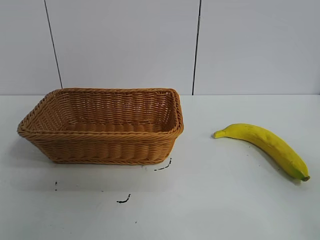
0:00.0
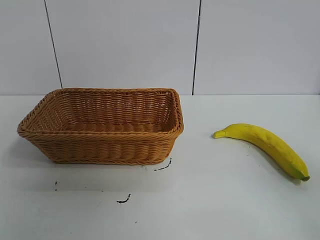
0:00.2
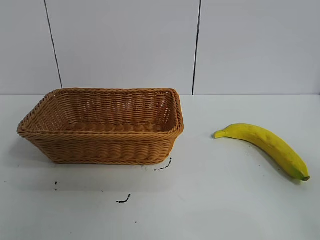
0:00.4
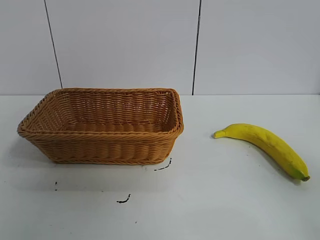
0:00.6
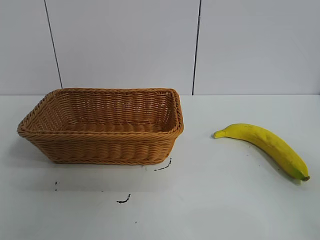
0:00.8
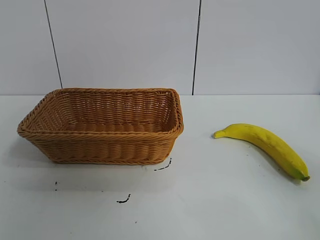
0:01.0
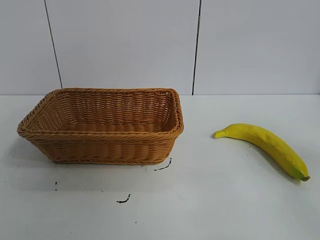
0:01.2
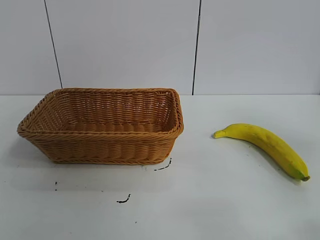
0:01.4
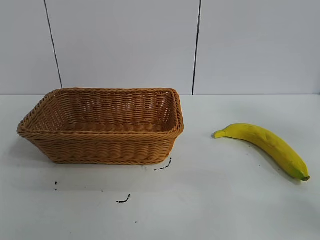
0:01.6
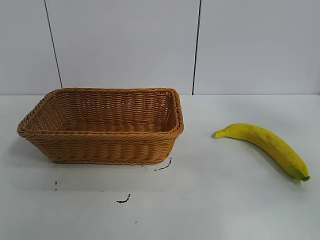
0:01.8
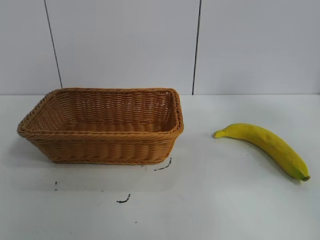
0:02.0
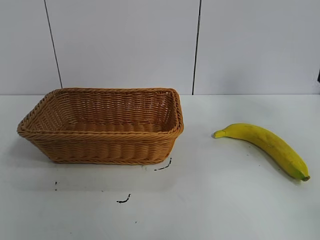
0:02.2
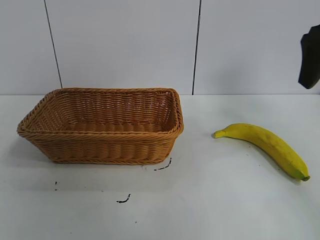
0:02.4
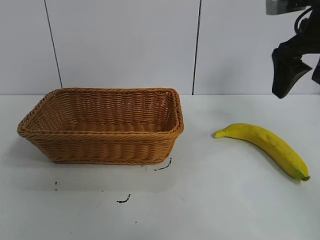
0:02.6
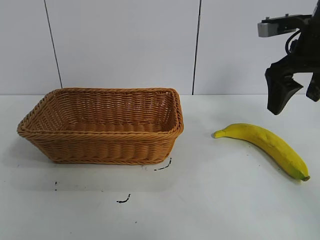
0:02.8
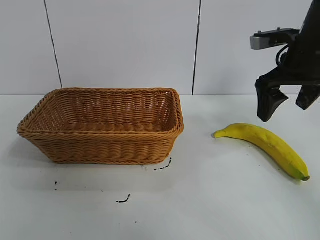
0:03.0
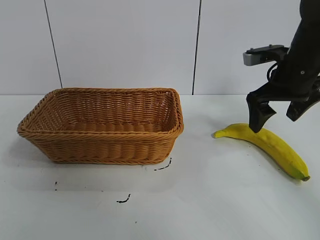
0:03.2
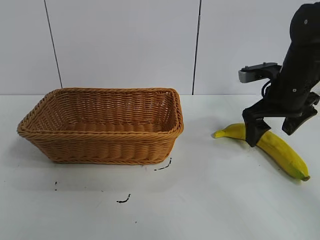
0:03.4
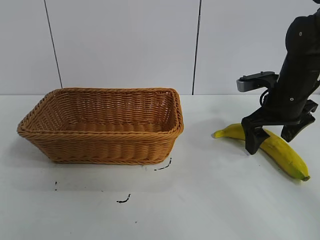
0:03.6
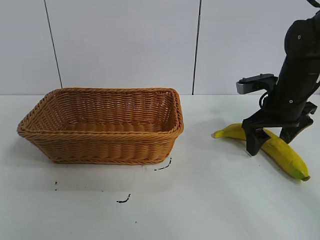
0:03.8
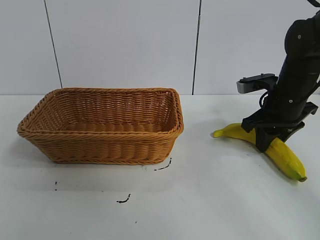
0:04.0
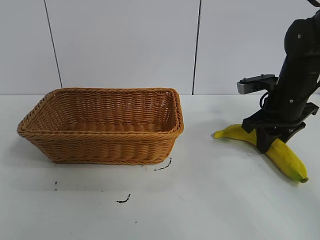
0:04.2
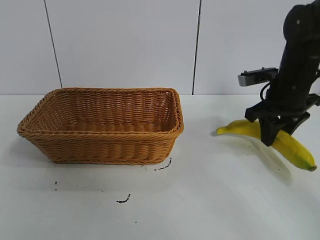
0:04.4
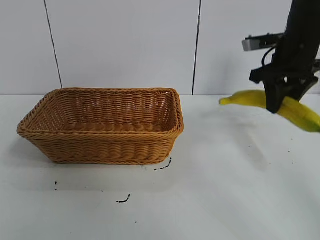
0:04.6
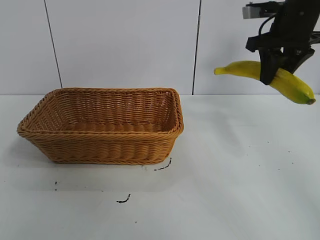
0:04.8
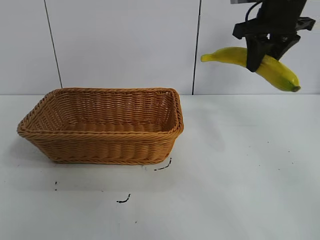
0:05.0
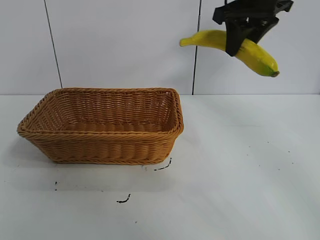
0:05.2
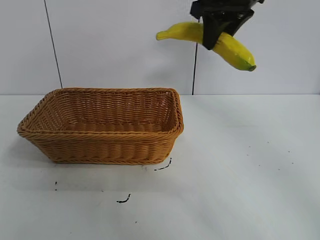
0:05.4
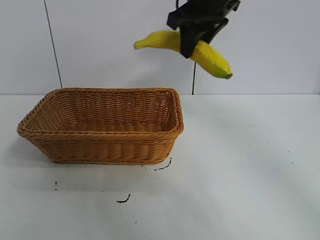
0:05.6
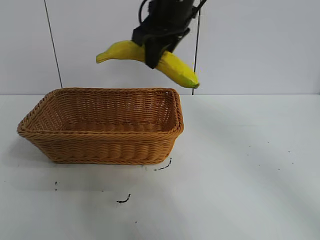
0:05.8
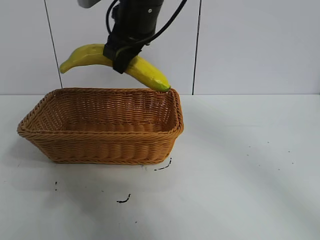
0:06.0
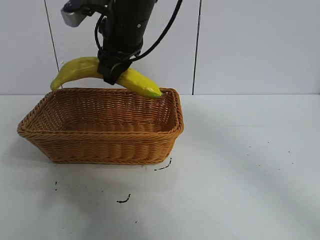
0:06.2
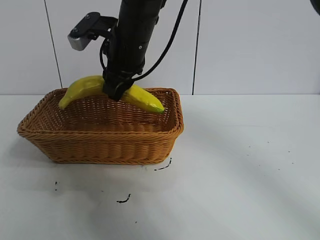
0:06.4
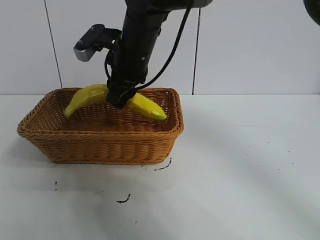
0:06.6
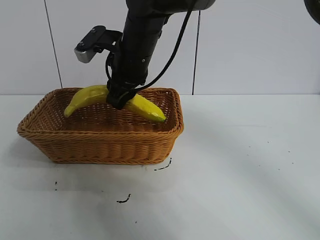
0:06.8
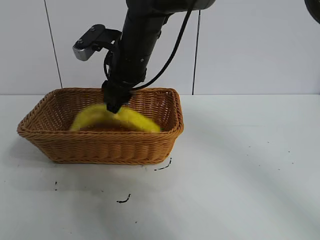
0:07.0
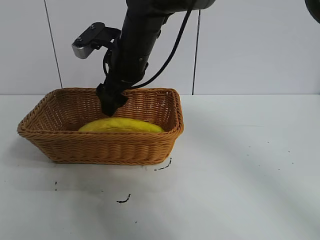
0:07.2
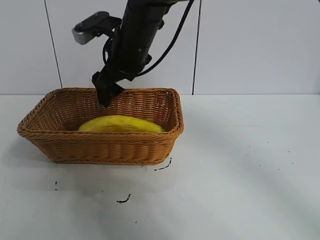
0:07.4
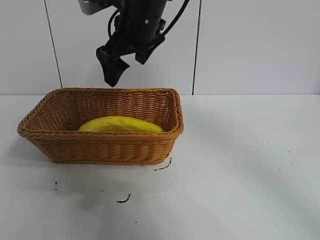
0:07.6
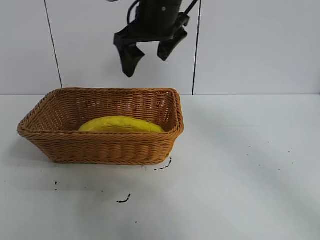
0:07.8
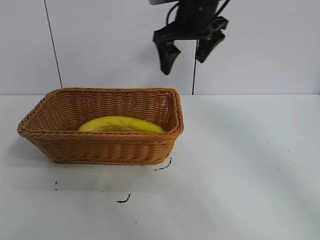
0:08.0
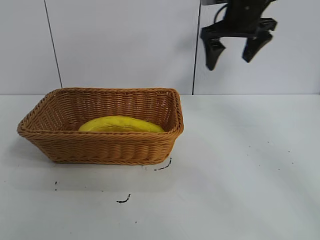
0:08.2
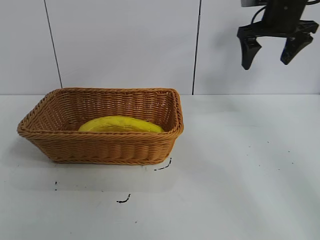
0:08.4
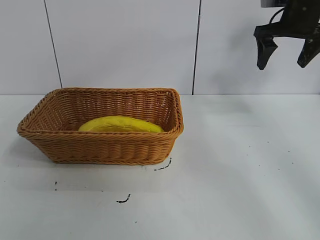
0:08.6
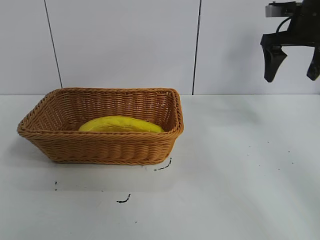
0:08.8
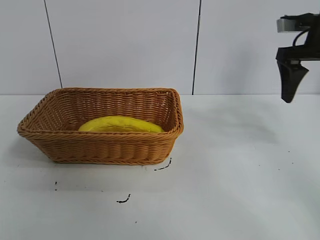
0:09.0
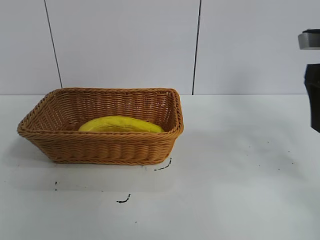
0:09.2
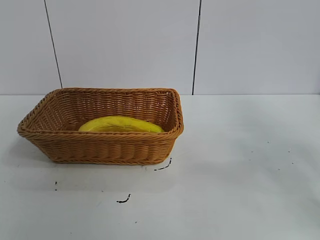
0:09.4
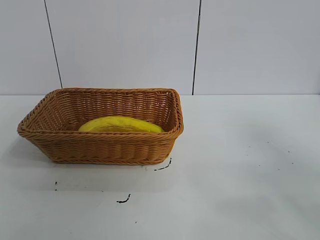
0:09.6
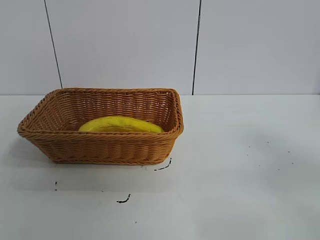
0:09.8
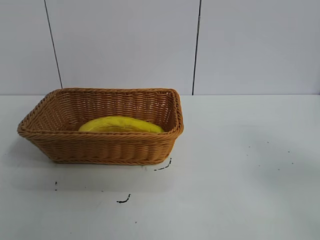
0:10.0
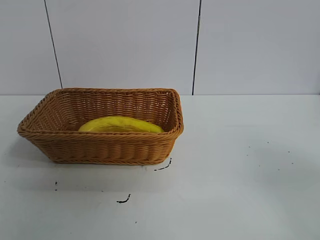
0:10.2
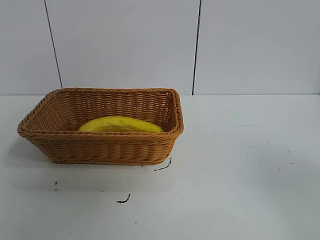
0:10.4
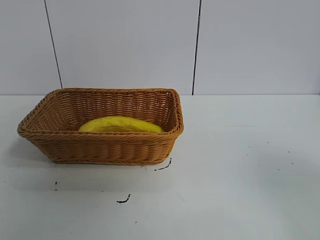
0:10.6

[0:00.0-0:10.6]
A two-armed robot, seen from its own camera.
Task of the whole recording: pick up the banana and put it into the basket.
Step, 0:00.8 to 0:04.2: Grasp the banana with right gripper.
Step, 0:04.4 to 0:07.0: Place the banana in the basket with right gripper.

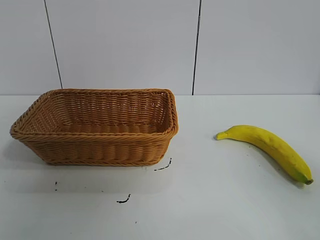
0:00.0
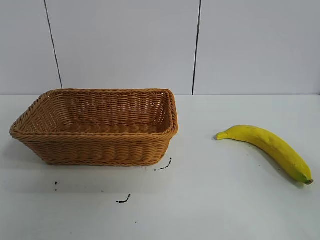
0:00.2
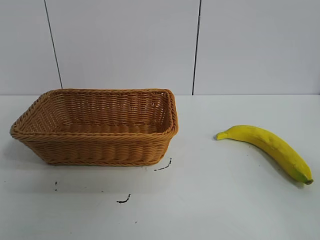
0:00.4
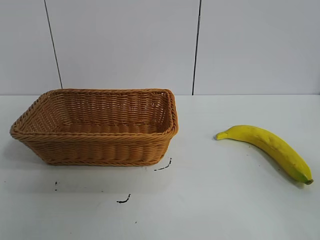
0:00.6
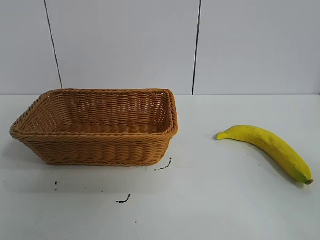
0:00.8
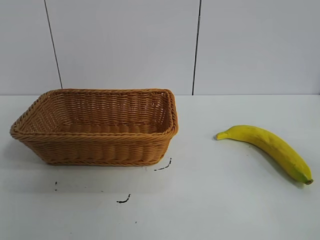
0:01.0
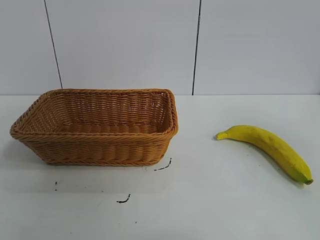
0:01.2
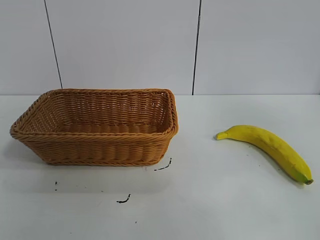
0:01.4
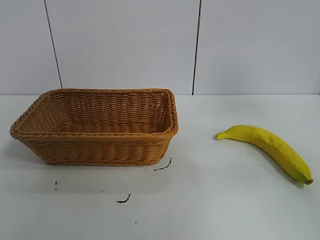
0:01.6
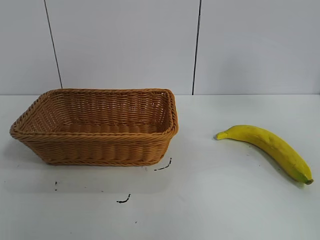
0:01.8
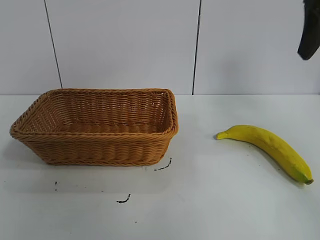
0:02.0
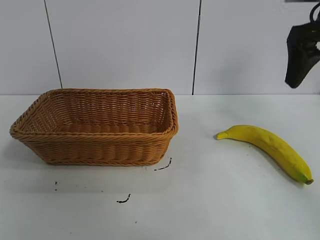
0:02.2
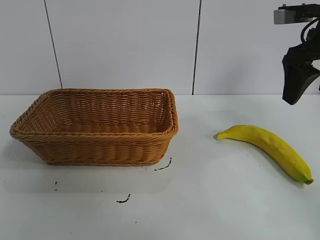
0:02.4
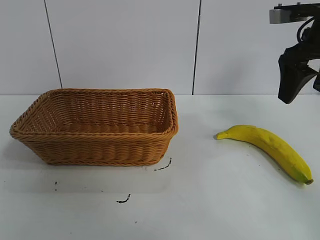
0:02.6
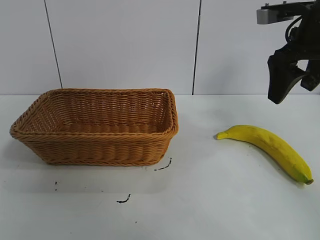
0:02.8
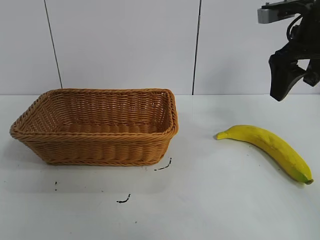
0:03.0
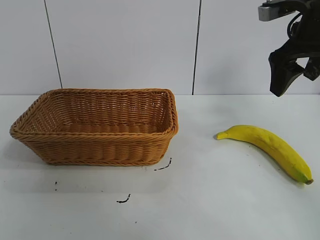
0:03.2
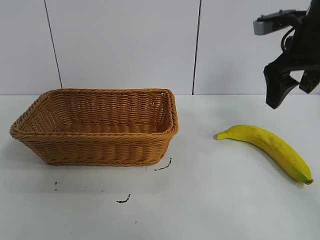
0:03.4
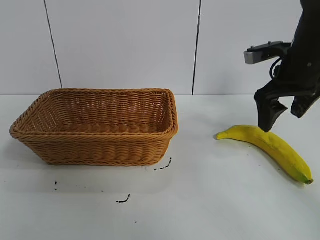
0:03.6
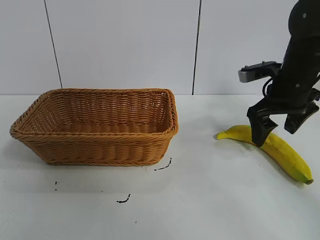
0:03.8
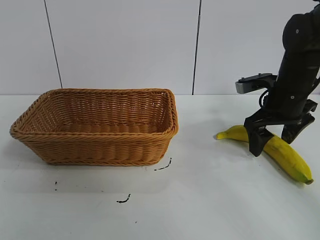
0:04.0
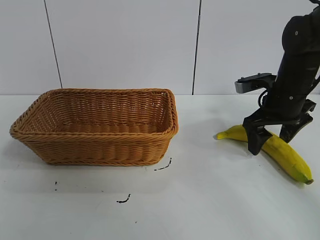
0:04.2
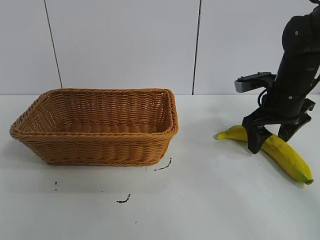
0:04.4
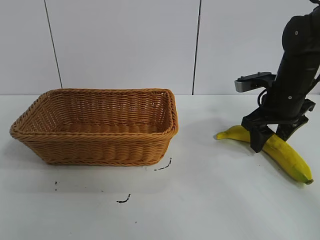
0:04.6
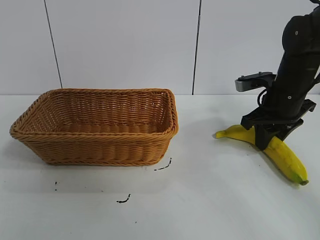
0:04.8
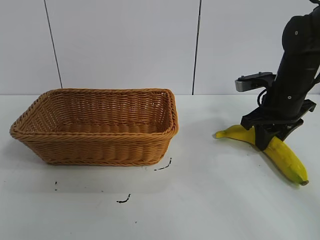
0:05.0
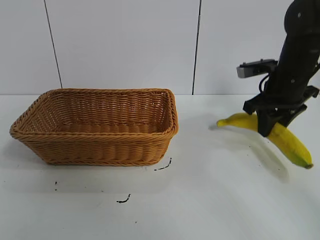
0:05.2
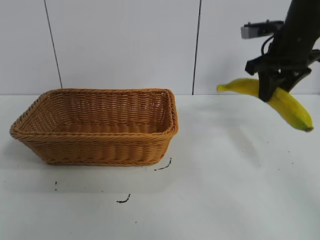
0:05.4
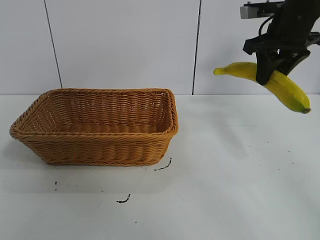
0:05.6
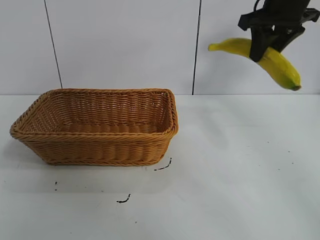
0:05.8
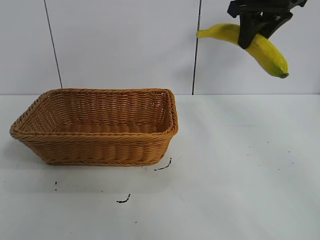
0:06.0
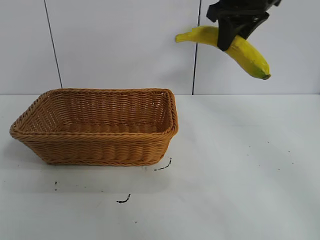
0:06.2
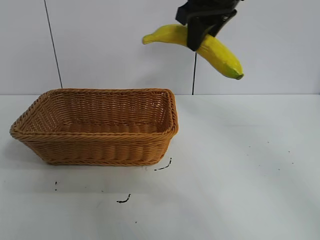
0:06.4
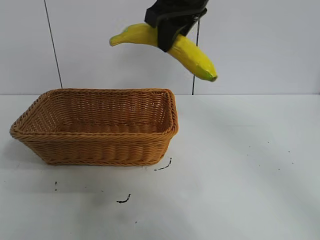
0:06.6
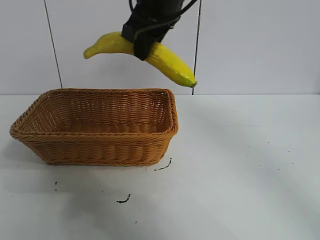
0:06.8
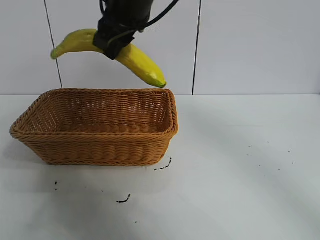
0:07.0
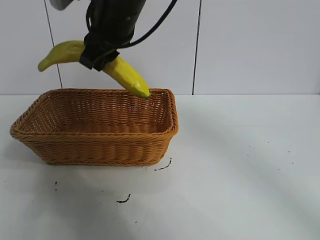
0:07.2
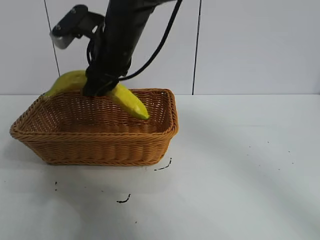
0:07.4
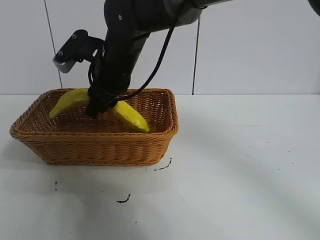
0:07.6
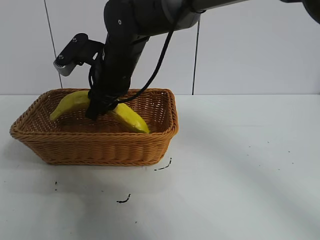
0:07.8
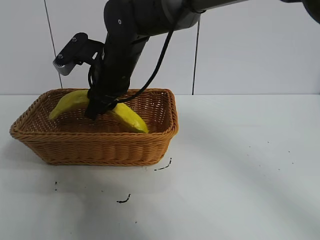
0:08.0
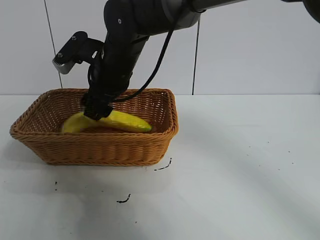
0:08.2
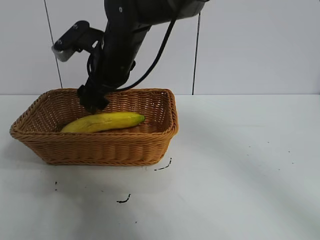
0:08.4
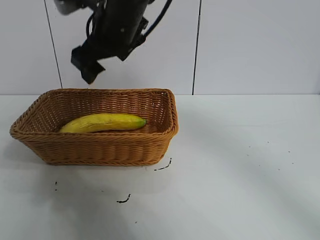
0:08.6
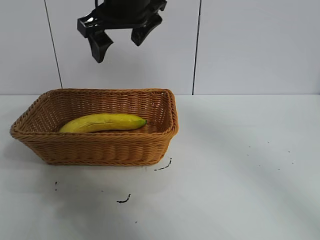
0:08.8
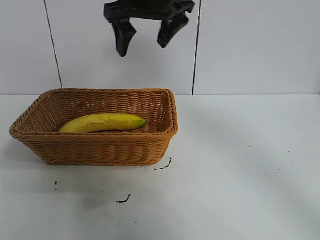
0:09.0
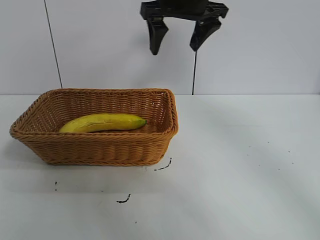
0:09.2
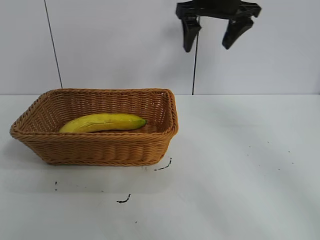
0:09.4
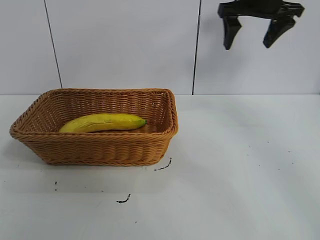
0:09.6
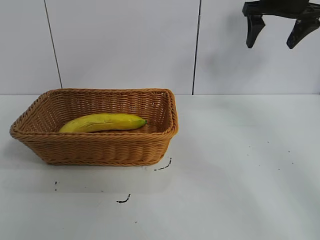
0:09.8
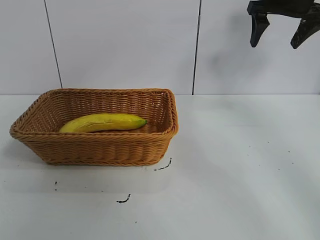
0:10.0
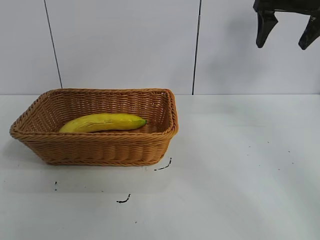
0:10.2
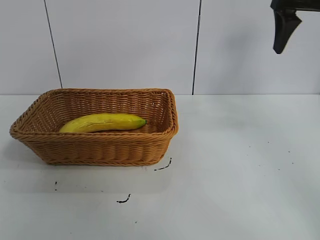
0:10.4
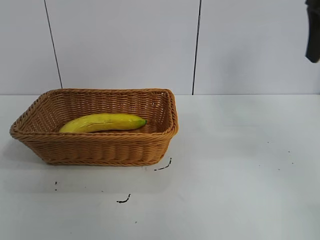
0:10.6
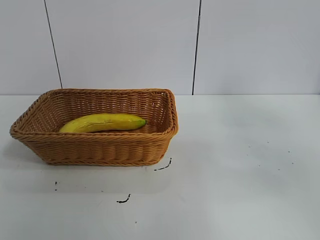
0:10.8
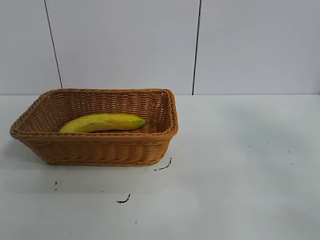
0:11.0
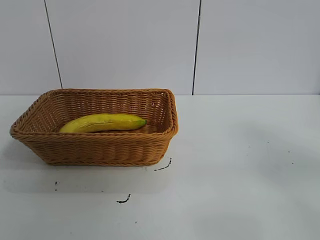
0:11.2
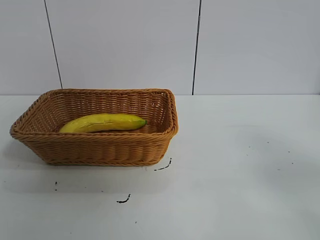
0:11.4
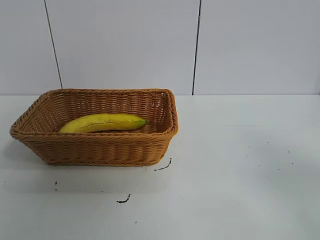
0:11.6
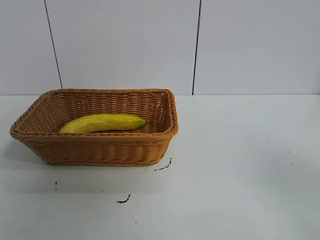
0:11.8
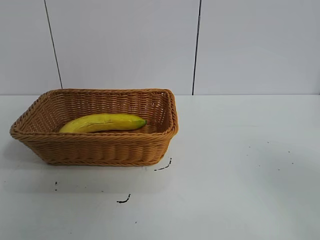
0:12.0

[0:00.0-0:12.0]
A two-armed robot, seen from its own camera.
Task of the whole recording: pick up the banana and put it into the basket.
Step, 0:01.0 to 0:04.8: Grasp the banana with right gripper.
Step, 0:05.0 to 0:08.2: Place the banana in the basket with right gripper.
